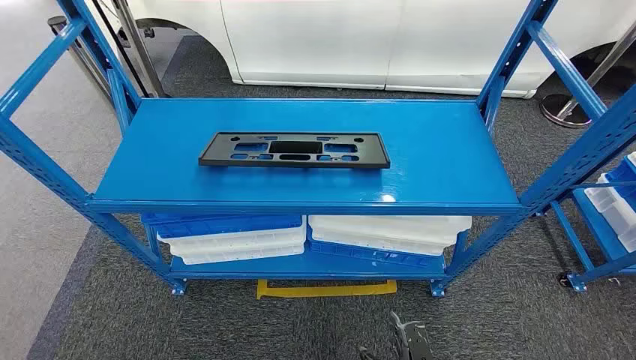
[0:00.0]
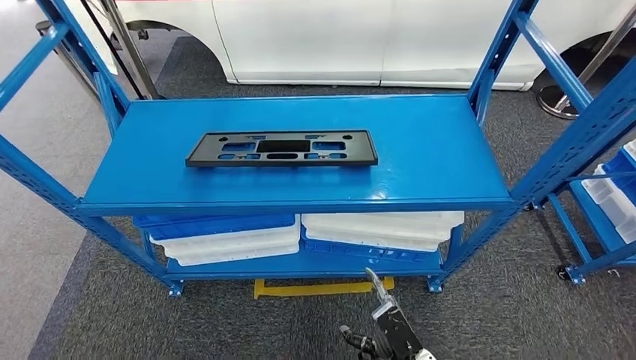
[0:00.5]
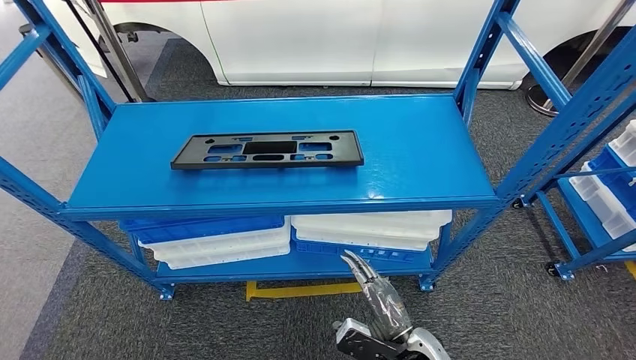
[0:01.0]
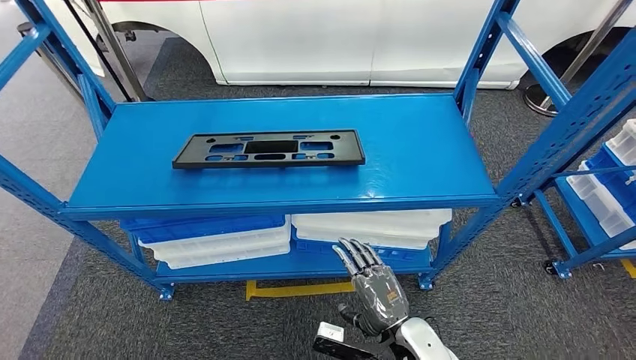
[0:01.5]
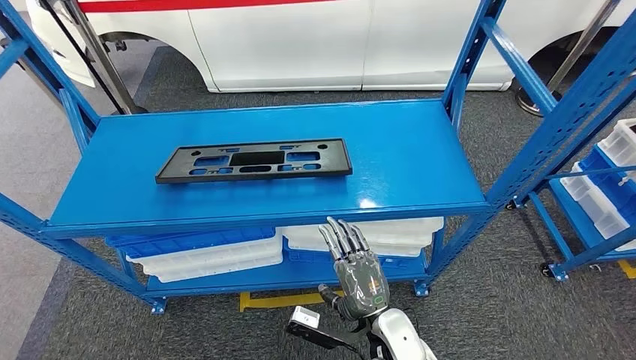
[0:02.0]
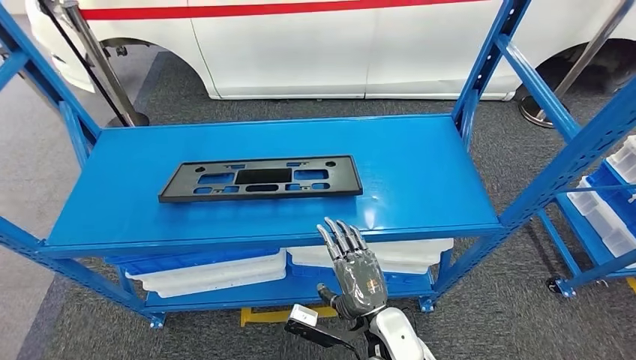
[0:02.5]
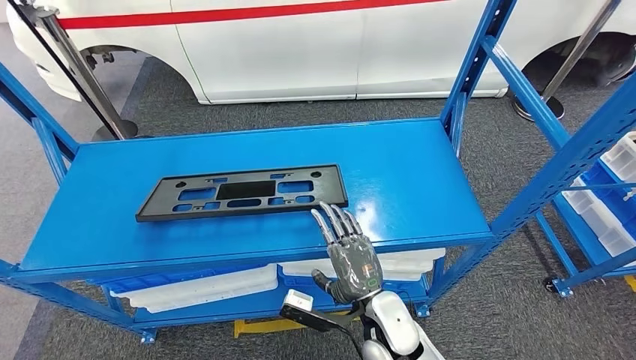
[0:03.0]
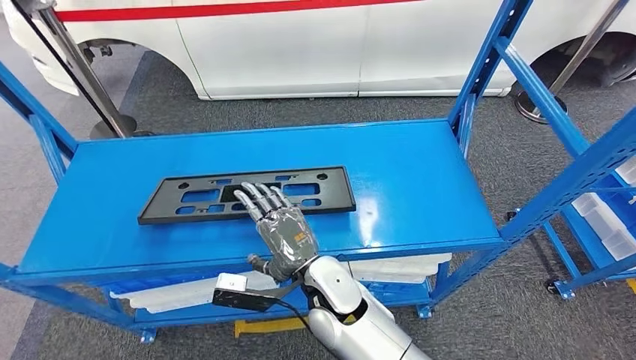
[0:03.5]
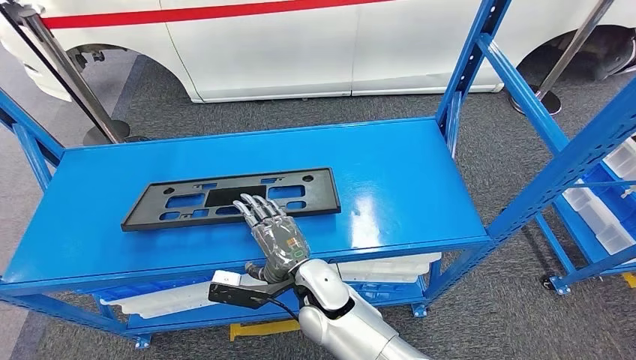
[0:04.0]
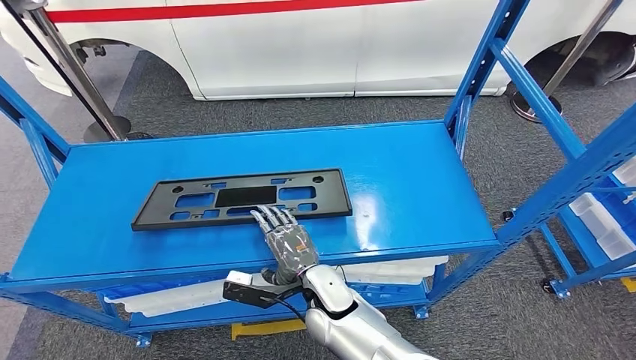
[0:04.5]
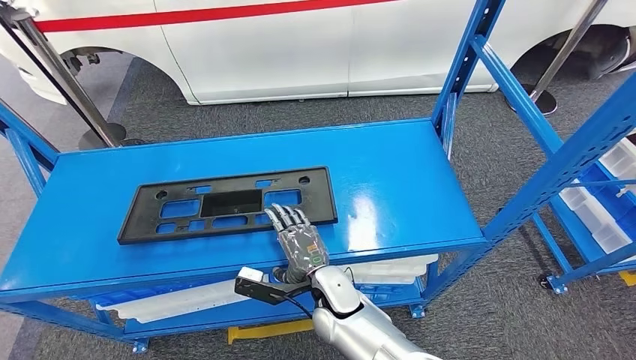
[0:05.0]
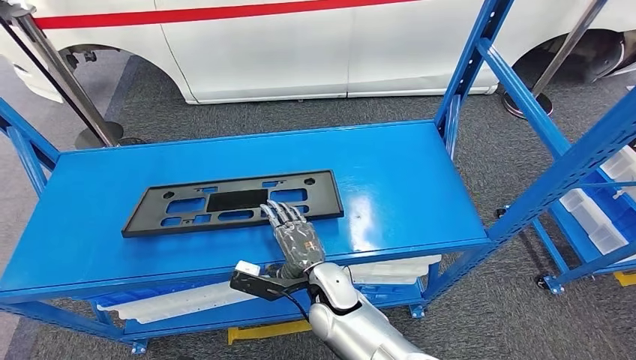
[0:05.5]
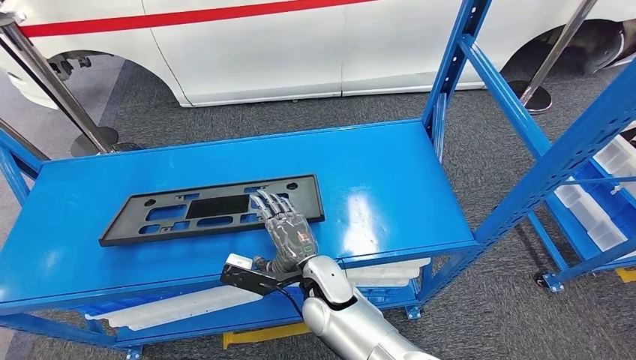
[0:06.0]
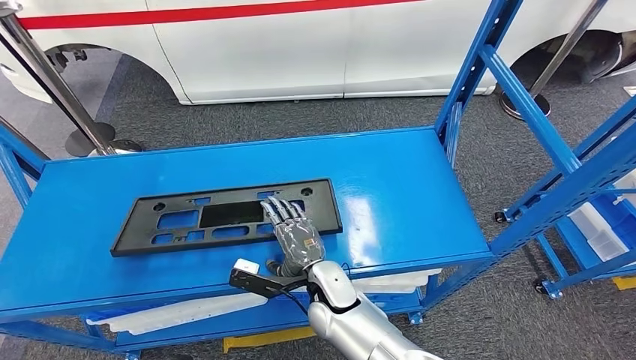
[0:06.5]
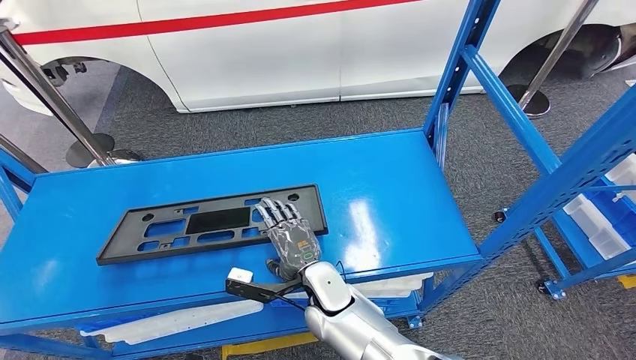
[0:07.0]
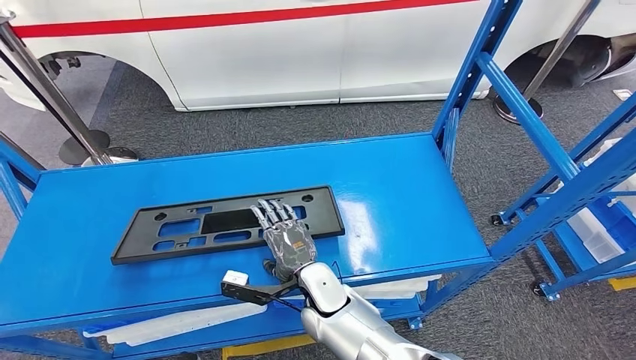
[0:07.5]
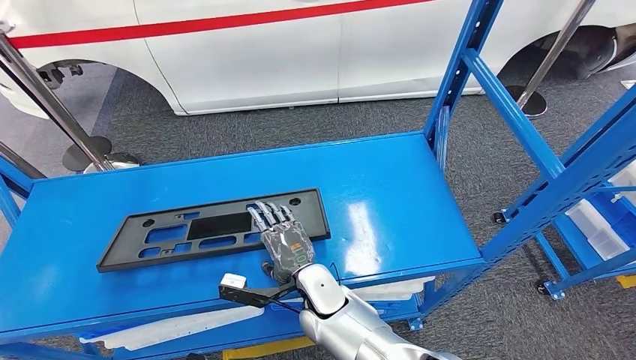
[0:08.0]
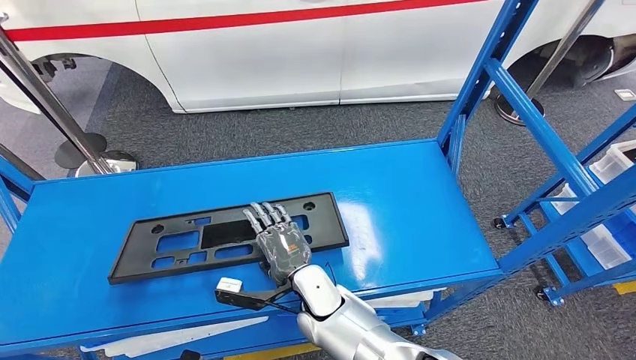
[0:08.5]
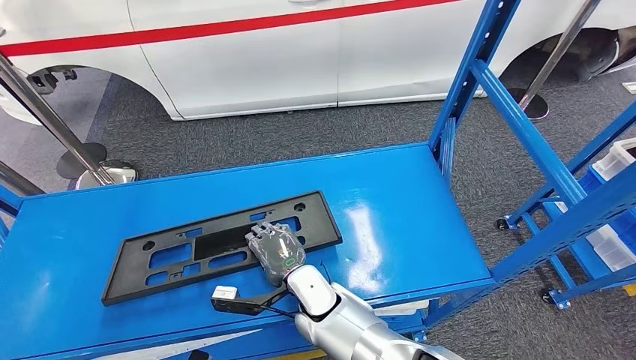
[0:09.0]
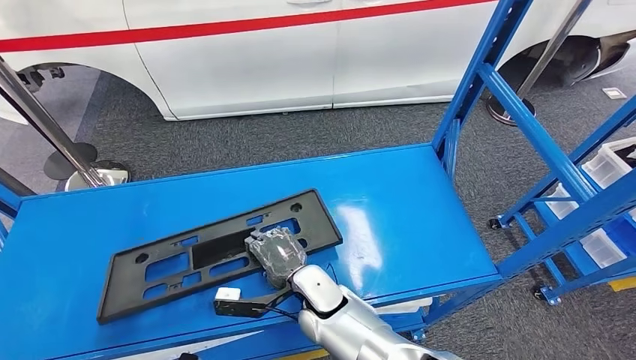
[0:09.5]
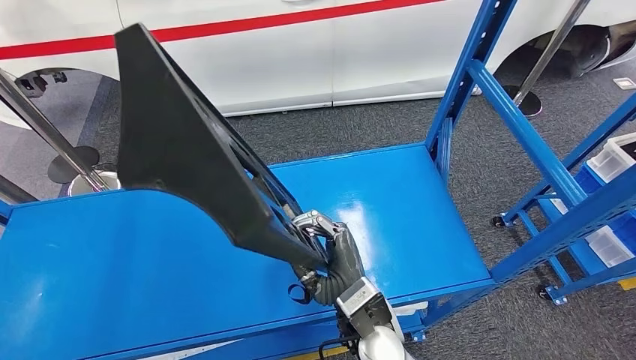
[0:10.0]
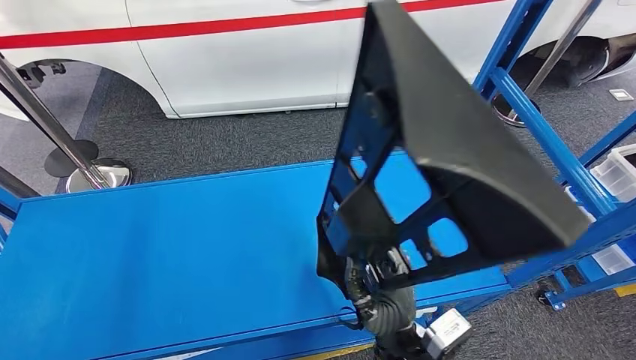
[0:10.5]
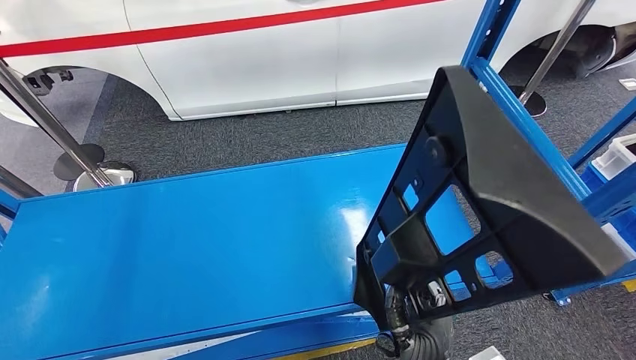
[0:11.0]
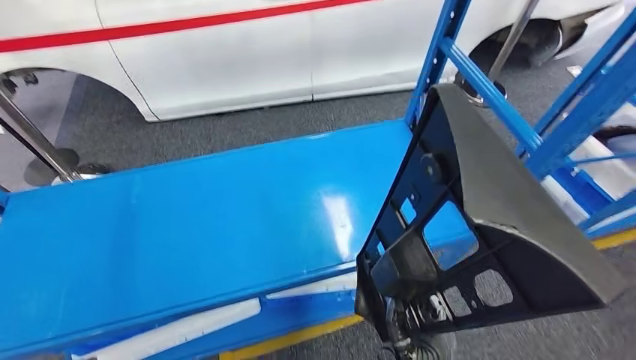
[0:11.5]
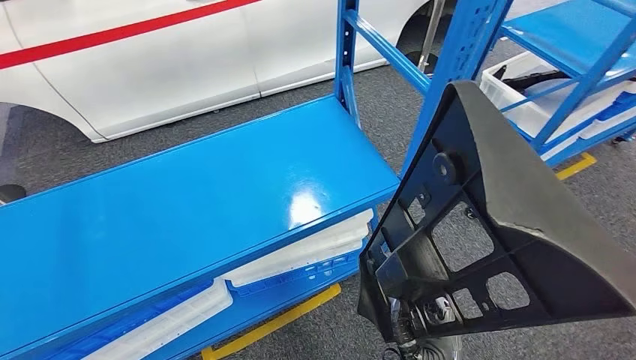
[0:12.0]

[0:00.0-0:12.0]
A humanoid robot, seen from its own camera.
Step, 0:00.0 to 0:11.0: Pick up the large material from the shelf.

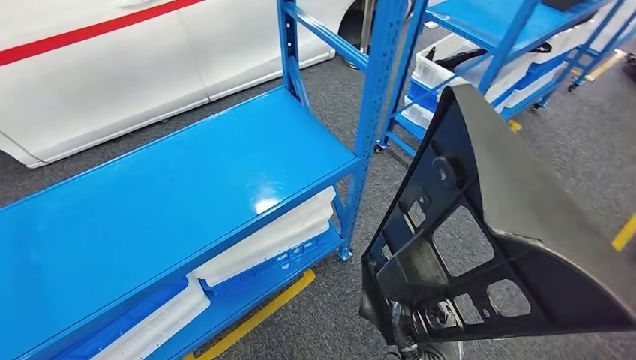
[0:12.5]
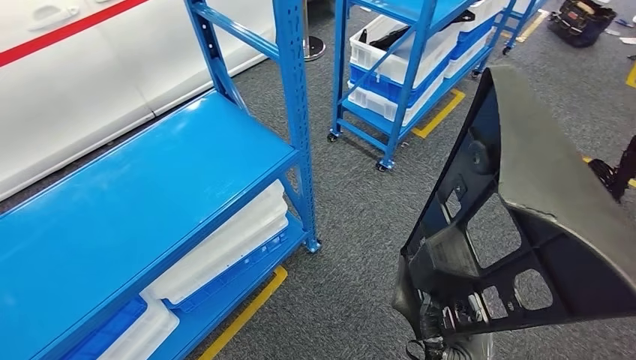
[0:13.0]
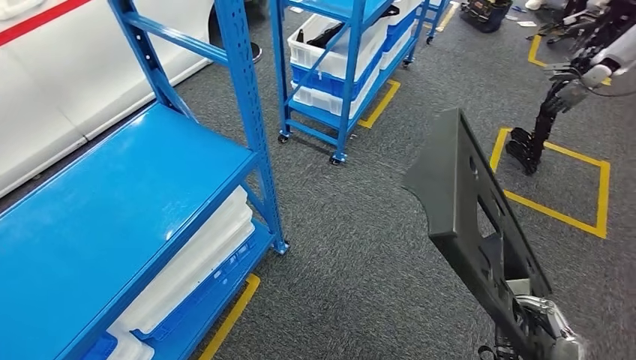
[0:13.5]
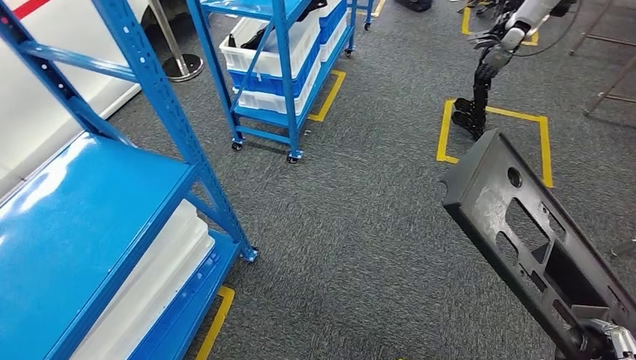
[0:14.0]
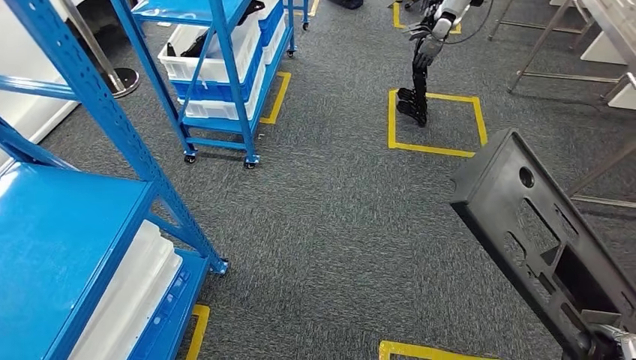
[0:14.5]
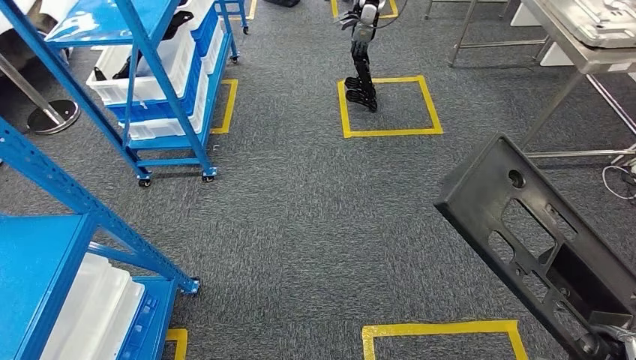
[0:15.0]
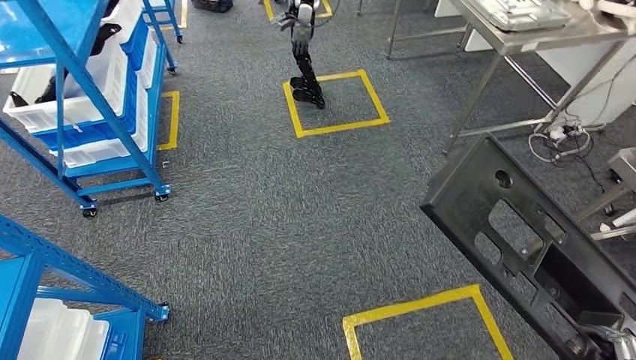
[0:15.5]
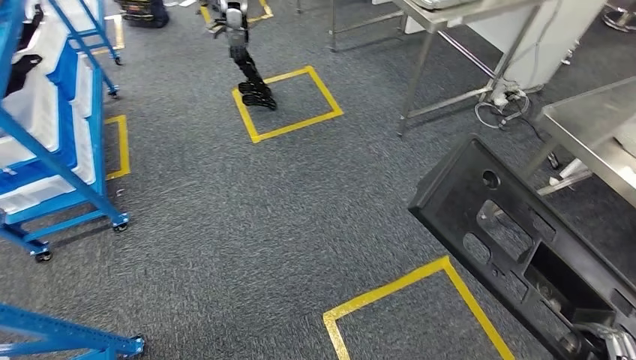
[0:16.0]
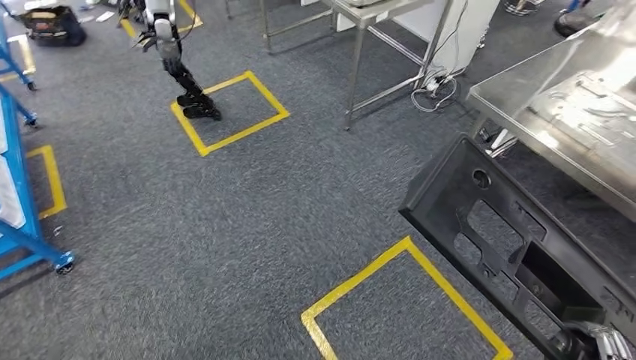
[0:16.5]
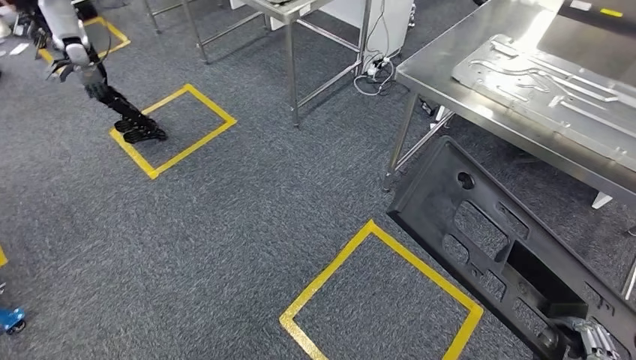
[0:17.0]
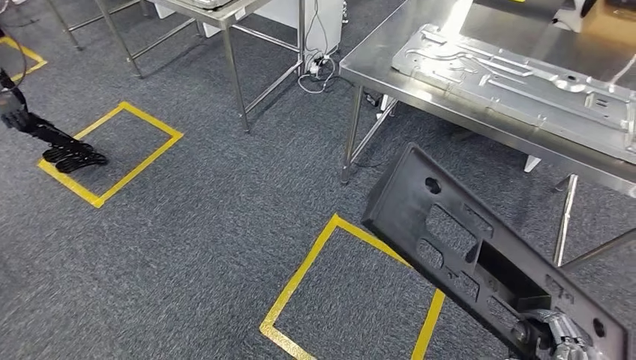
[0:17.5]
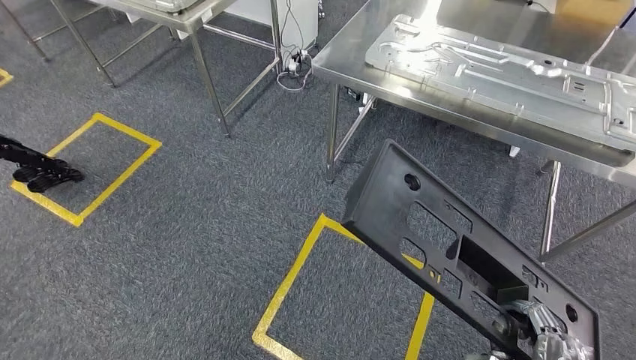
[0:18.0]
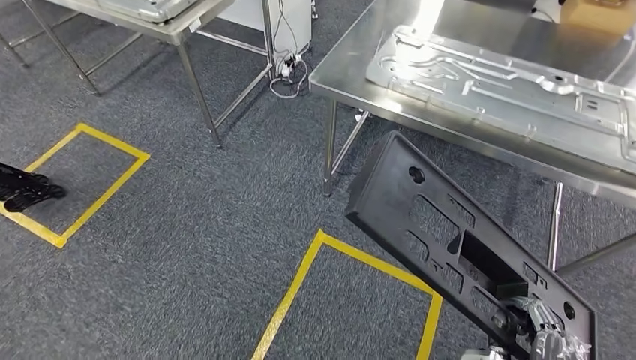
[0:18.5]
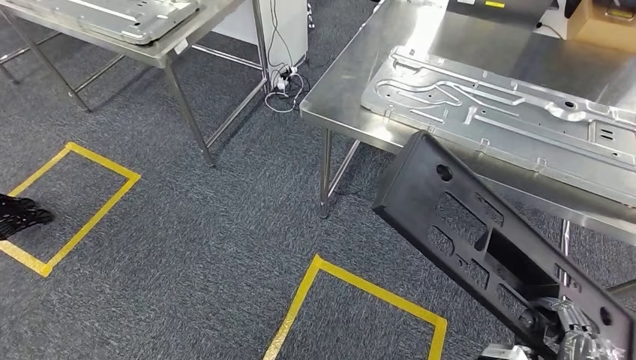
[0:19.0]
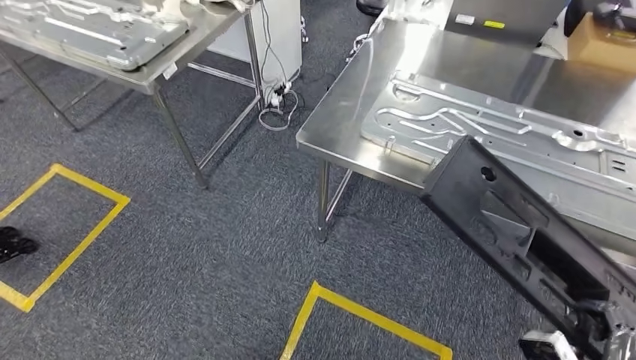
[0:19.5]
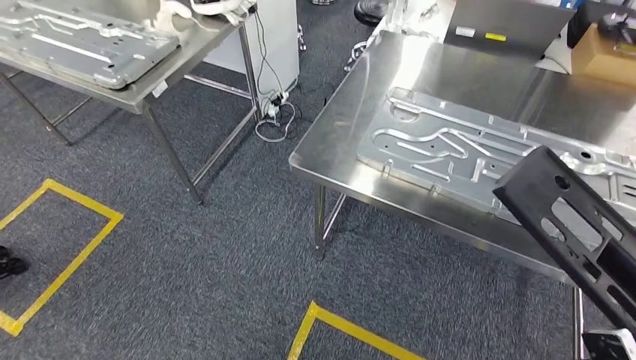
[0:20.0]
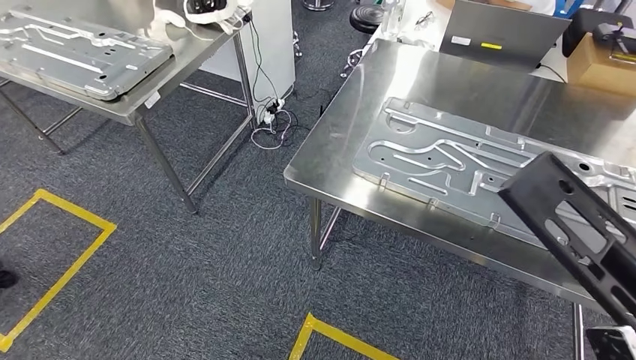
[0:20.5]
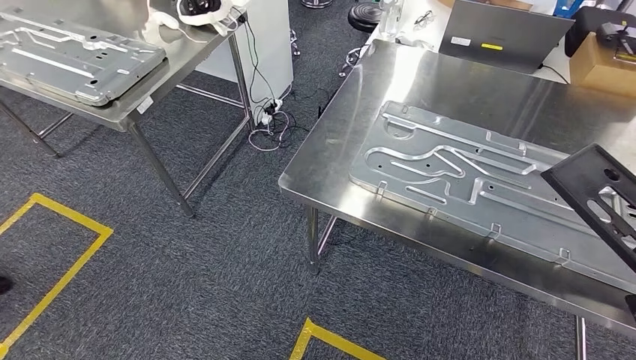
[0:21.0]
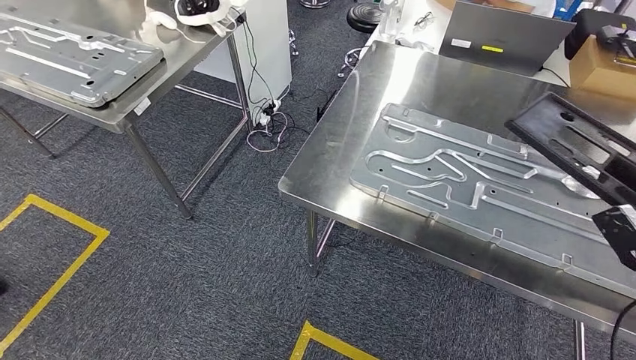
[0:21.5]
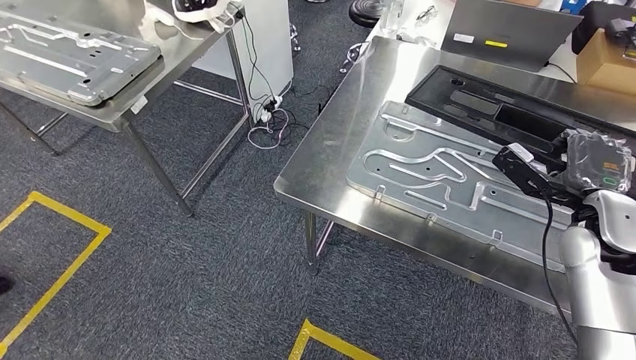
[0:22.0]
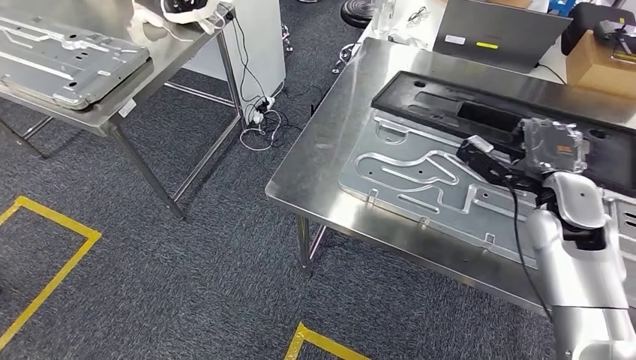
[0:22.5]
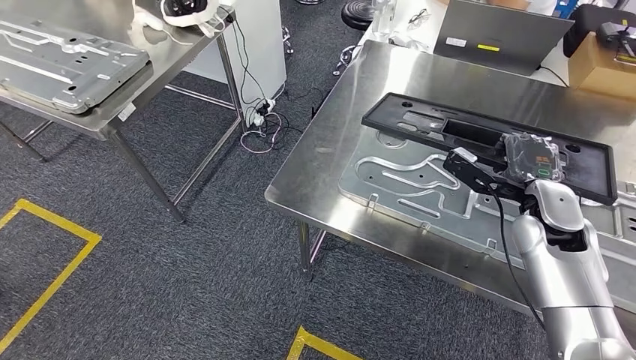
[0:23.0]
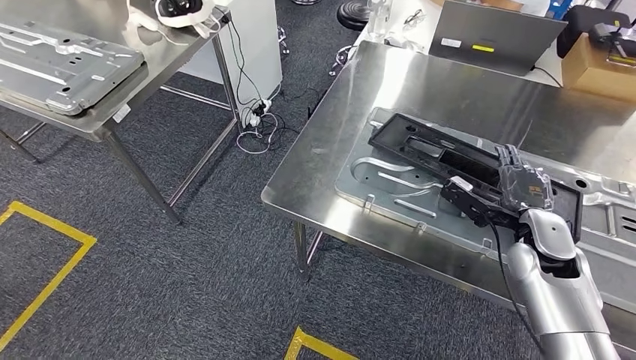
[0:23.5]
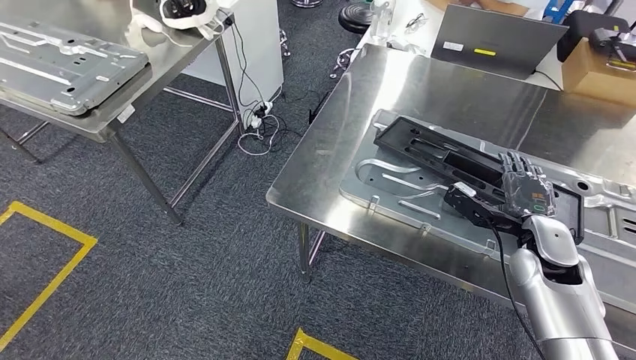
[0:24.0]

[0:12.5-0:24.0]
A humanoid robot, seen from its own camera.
Step, 0:12.5 to 0:21.0: Move the large material to the workbench.
